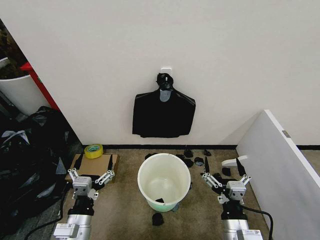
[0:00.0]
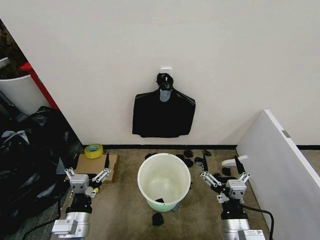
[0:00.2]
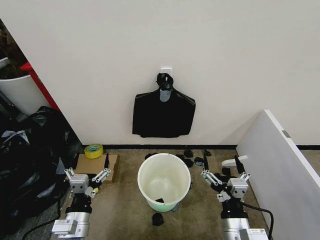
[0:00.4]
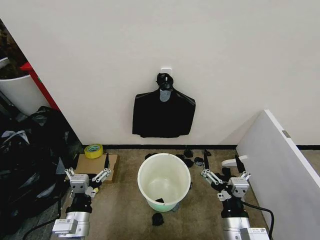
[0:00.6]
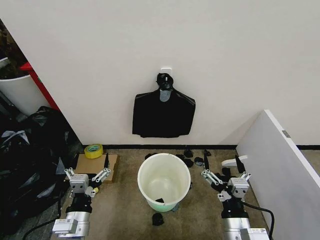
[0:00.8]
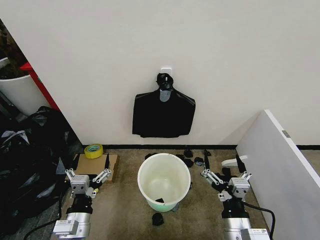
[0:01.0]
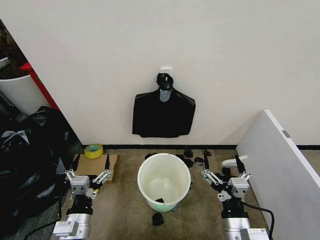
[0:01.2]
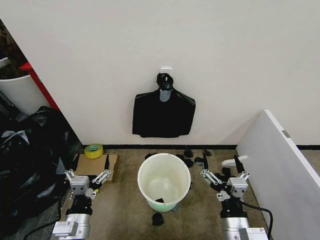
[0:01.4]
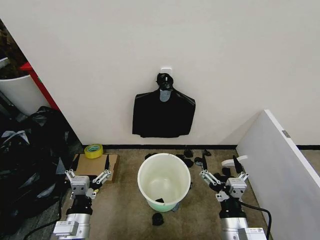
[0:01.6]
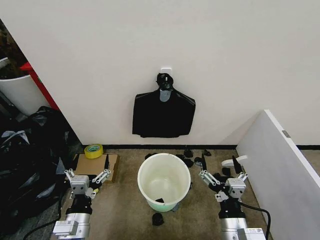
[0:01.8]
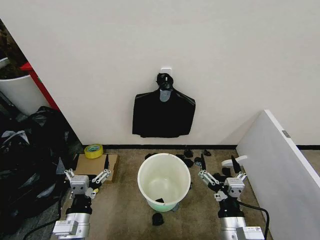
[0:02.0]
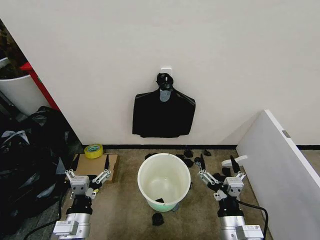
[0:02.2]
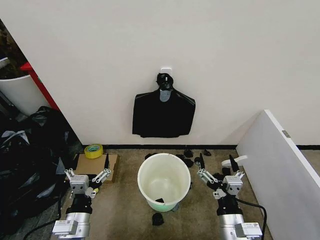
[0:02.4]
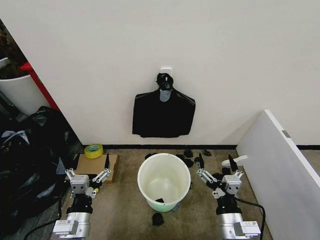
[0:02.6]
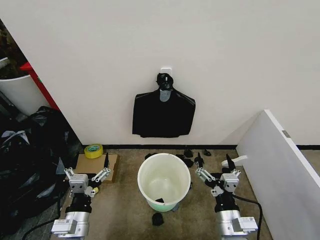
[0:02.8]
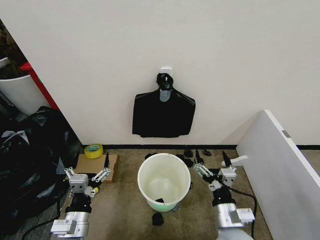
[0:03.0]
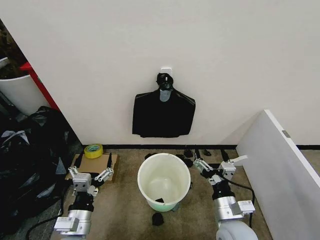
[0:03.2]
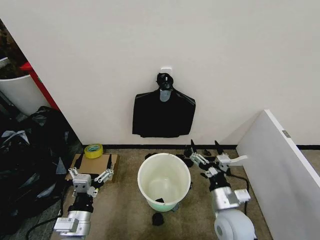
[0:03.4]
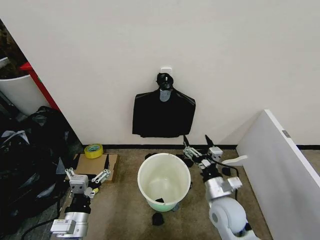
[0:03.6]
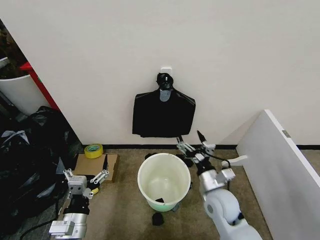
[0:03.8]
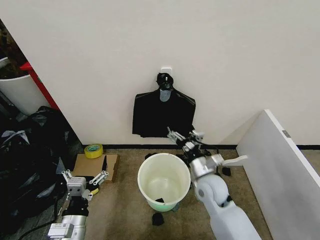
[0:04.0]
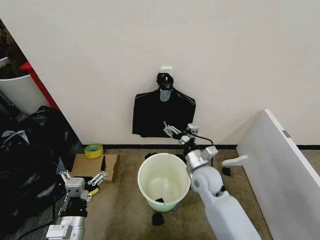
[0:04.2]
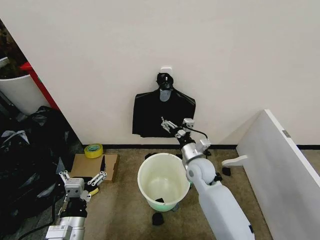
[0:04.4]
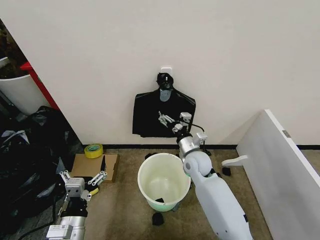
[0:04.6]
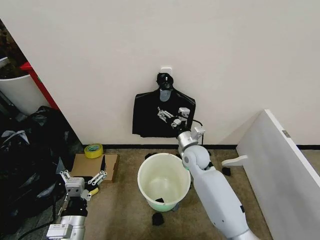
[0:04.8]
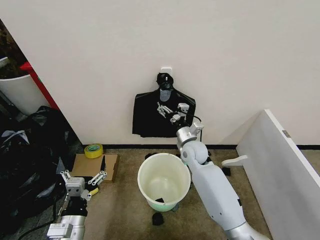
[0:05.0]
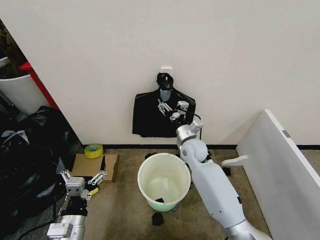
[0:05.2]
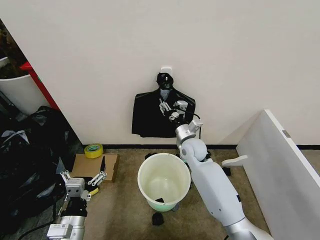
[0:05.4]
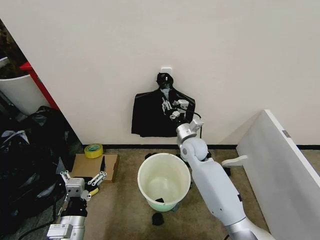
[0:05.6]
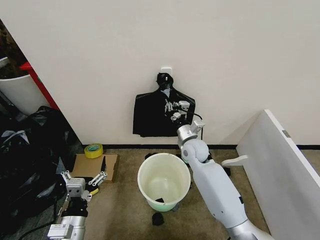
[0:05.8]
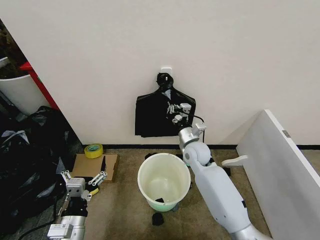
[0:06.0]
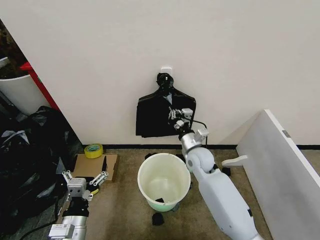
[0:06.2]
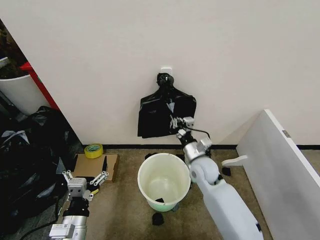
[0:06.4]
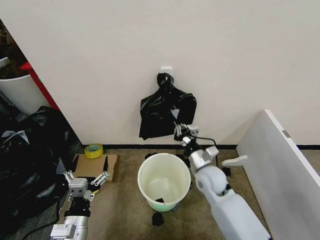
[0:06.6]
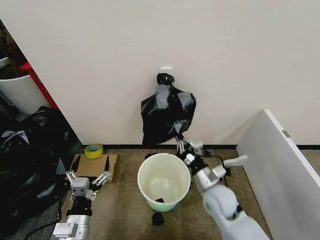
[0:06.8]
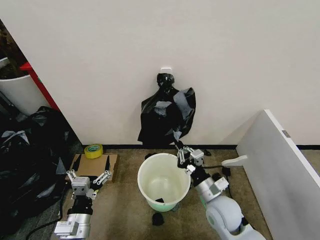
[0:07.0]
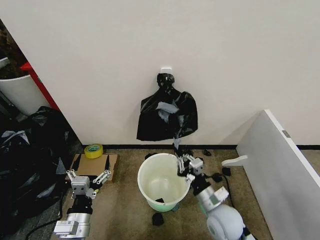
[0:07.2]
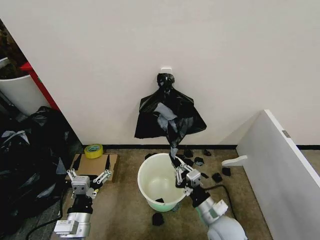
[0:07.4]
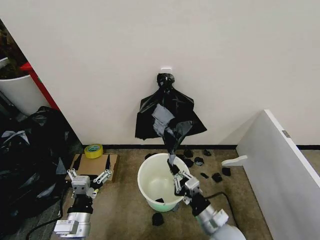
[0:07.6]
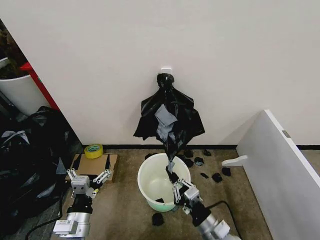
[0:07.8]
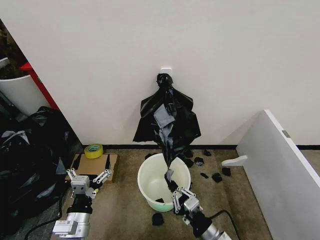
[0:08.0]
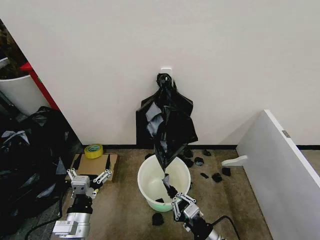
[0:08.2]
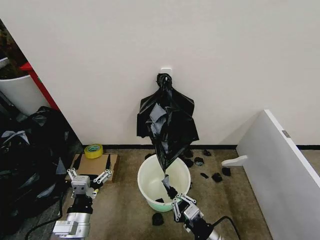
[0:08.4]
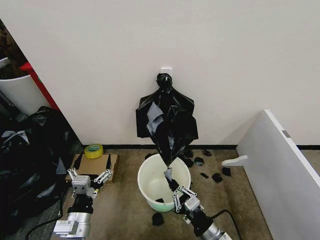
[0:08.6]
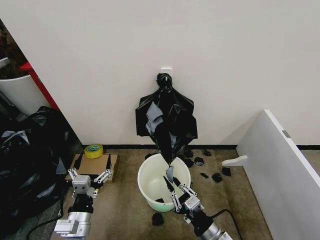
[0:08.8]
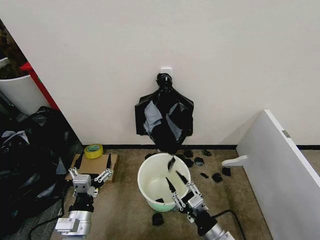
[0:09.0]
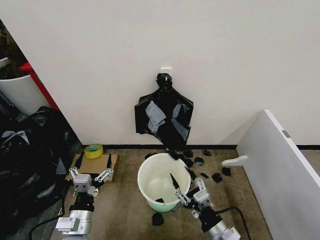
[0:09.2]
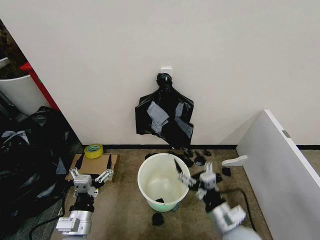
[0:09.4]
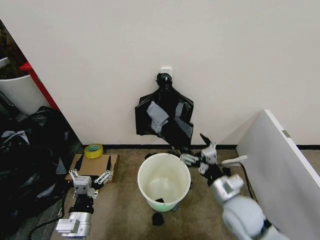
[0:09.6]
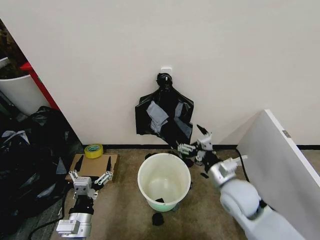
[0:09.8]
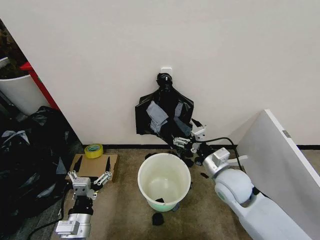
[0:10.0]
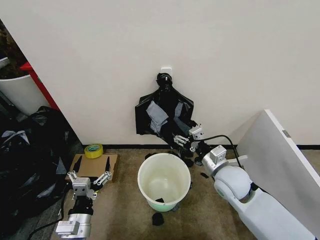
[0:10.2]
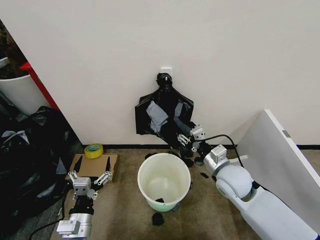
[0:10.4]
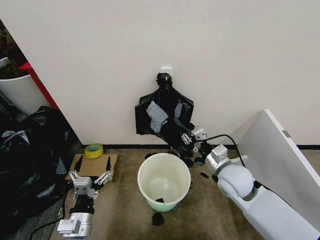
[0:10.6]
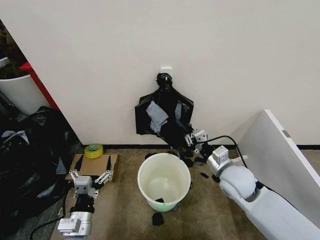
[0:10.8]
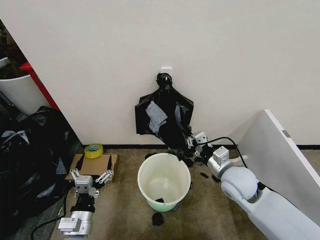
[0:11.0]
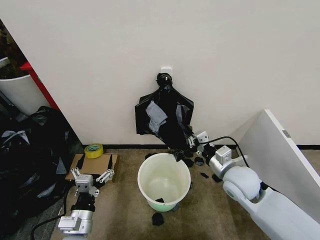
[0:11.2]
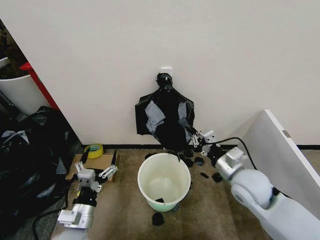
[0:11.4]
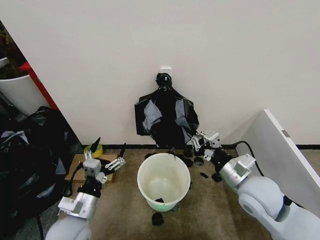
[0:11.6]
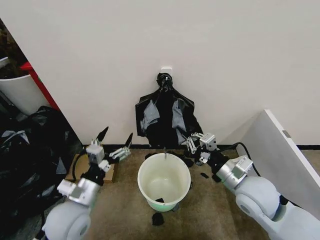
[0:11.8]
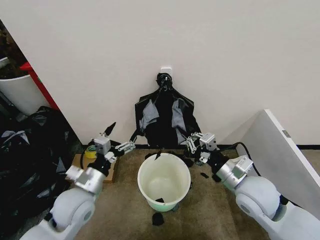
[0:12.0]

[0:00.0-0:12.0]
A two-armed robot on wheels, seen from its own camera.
Task of the whole recording: Place the garbage bag over the trash bin.
0:01.6 to 0:03.0: The grippers move only a little.
0:03.0 to 0:04.4: The right gripper goes approximately 20 cm forward.
0:04.4 to 0:06.0: The right gripper is displaced forward by approximately 5 cm, and closes up.
0:06.0 to 0:07.6: The right gripper moves backward, about 25 cm.
0:07.6 to 0:09.0: The right gripper goes about 5 cm backward, and opens up.
0:09.0 to 0:10.4: The right gripper is displaced forward and upward by about 20 cm, and opens and closes again.
0:10.4 to 0:12.0: The left gripper travels forward and upward by about 15 cm. Meanwhile the right gripper is displaced backward by about 5 cm, and closes its fingers.

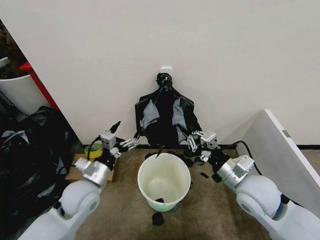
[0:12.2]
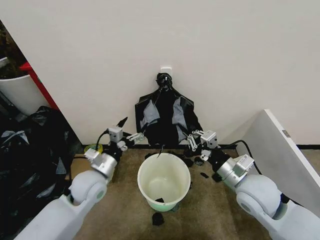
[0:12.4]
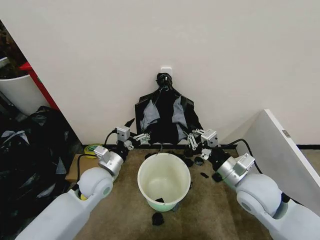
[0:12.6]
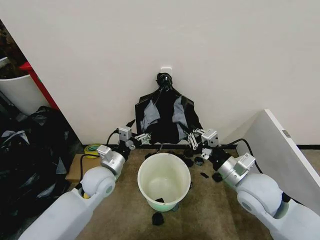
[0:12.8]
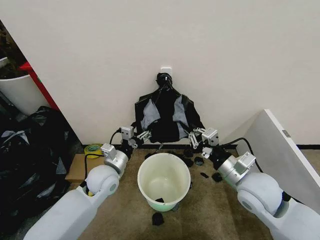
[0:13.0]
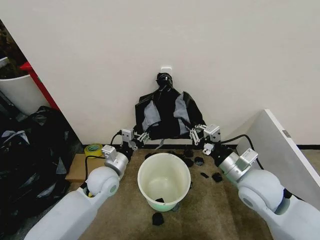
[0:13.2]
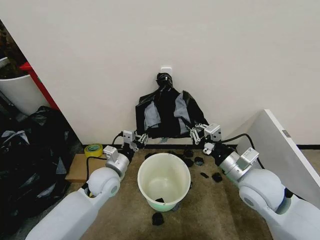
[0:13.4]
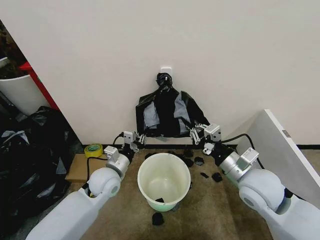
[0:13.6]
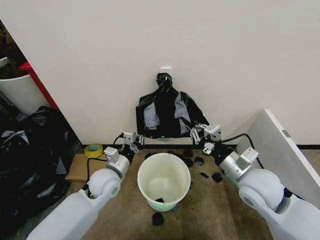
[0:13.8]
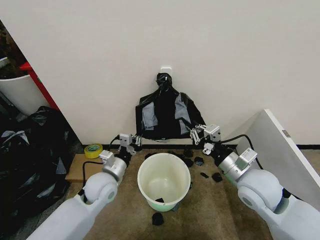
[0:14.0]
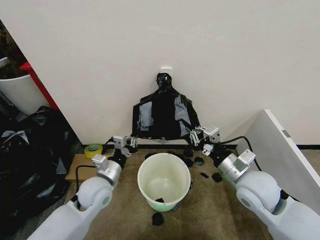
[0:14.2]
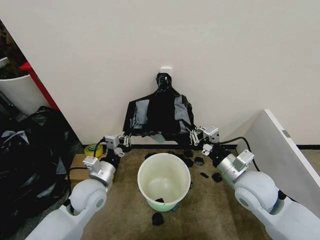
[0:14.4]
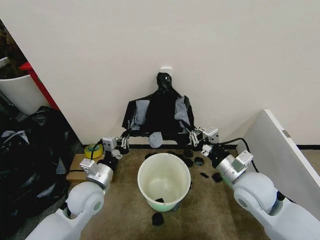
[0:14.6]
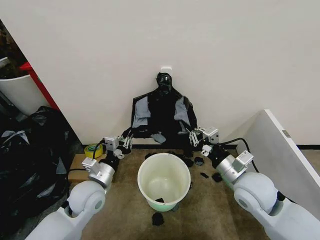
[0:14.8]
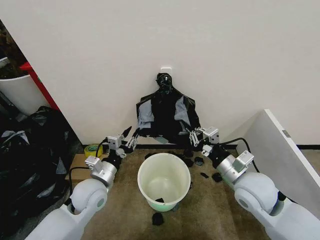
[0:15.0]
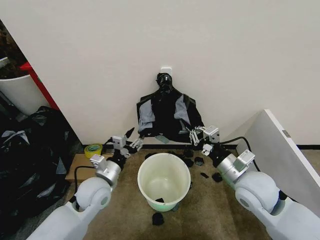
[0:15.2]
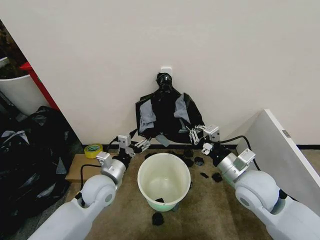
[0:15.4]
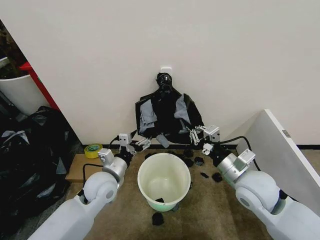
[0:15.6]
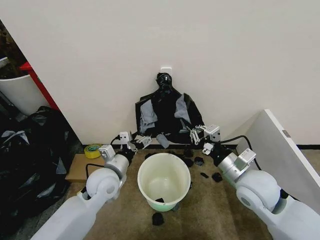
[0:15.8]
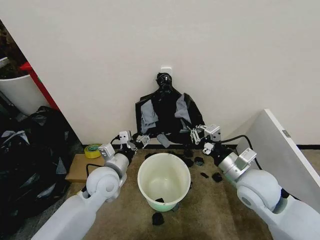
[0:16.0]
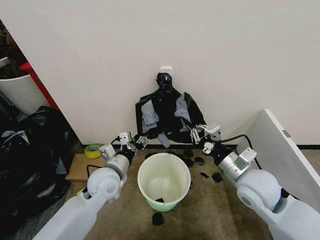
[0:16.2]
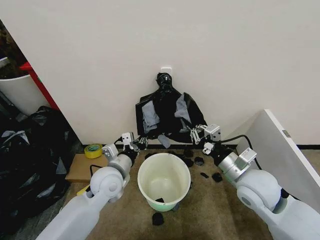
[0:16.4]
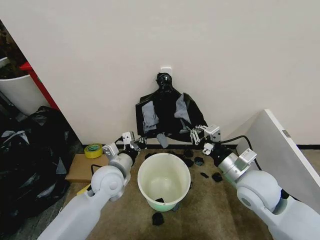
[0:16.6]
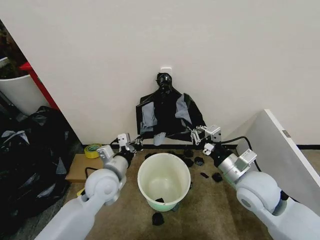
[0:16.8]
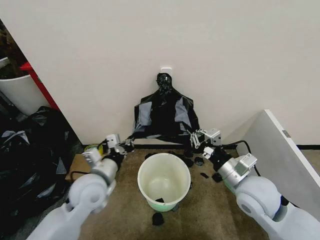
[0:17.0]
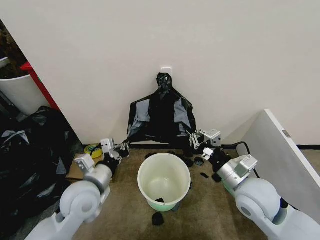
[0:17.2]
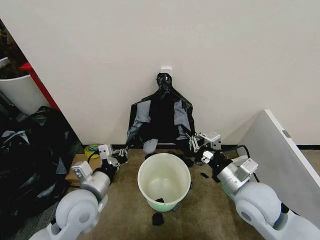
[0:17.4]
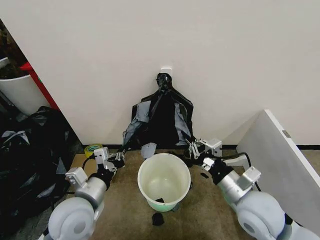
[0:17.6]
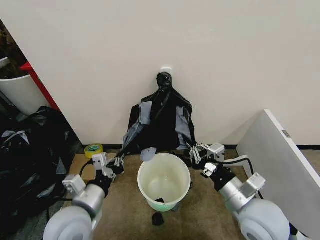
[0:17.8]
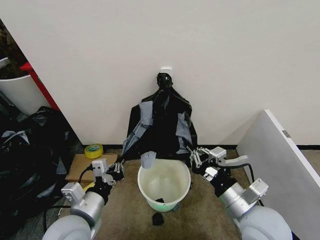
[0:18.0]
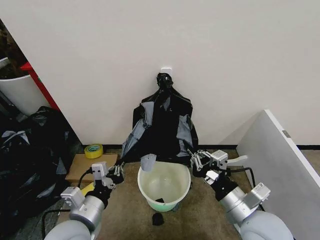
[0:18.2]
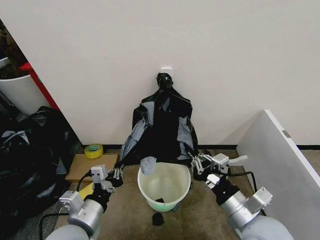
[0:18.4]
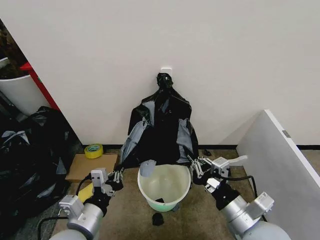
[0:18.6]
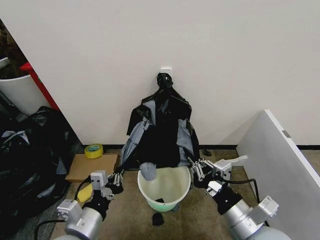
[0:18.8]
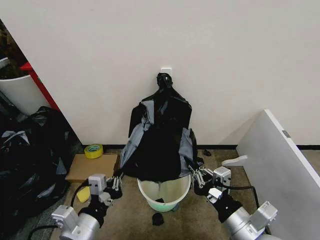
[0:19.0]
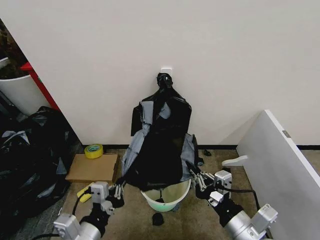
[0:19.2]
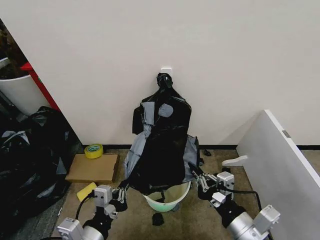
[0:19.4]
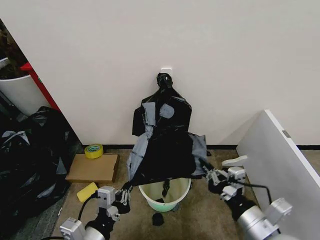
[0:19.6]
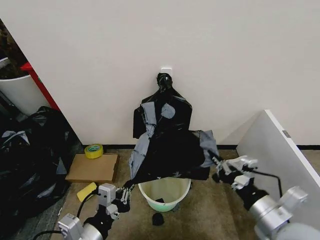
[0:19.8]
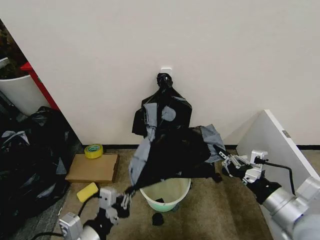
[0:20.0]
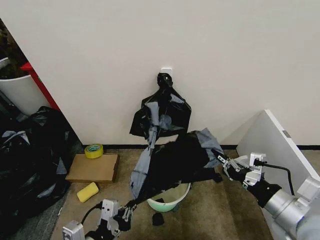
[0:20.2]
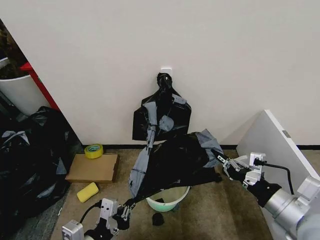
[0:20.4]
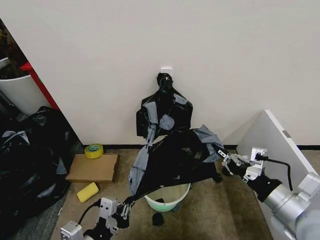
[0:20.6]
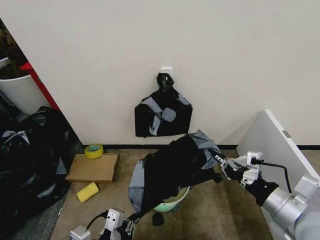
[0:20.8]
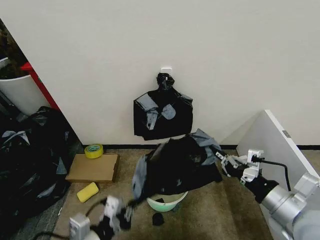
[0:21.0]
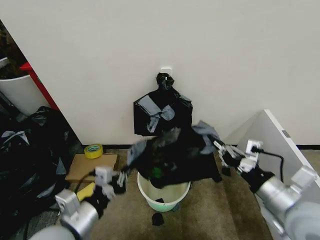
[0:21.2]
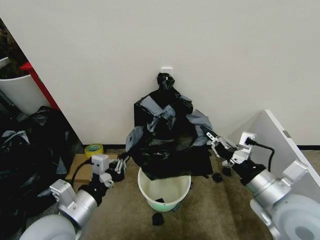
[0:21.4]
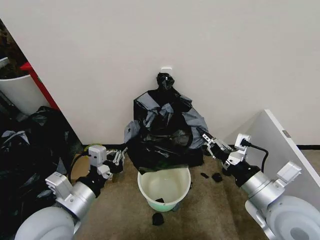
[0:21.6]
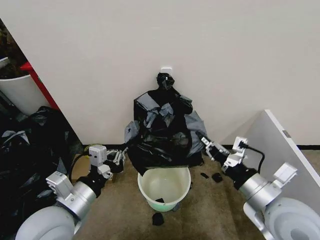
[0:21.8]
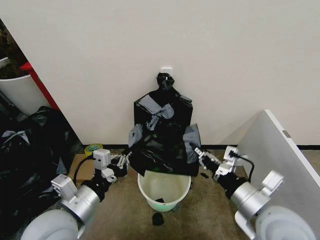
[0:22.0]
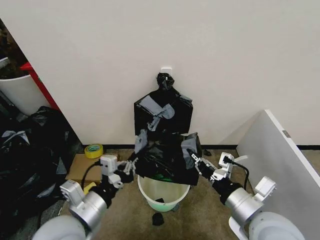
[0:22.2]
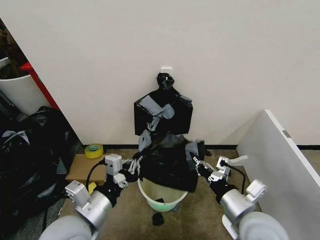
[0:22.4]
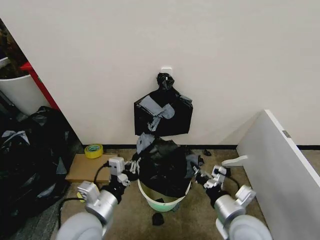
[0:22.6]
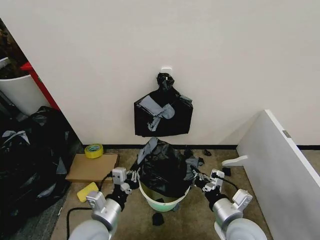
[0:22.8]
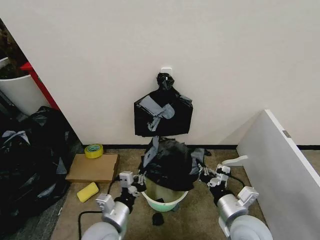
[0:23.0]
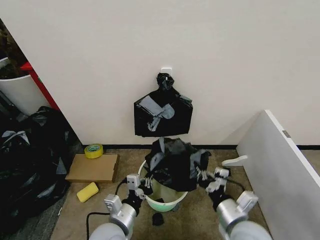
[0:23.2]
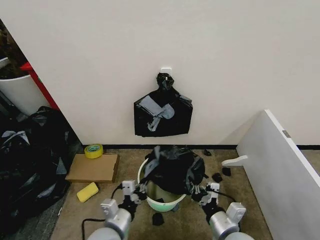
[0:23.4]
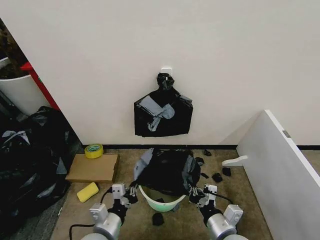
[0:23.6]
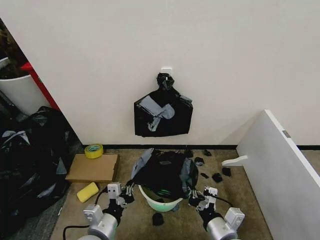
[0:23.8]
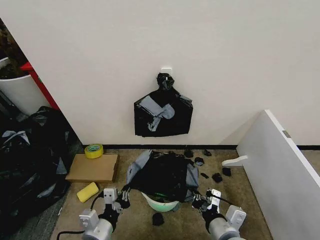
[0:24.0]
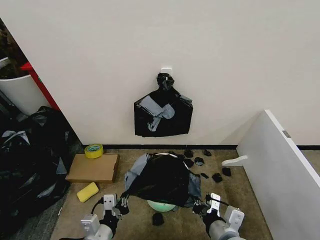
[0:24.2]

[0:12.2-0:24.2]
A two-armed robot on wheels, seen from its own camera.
Task of the whole recording: Place the garbage bag over the trash bin.
0:12.2 to 0:13.8: The left gripper moves forward, some 5 cm, and closes its fingers.
0:13.8 to 0:15.2: The left gripper opens.
0:15.2 to 0:16.6: The left gripper changes place by about 5 cm, and closes.
0:16.6 to 0:18.2: The left gripper moves backward, approximately 15 cm; the right gripper heads backward, covering about 10 cm.
0:18.2 to 0:19.8: The left gripper is displaced backward by about 5 cm, while the right gripper is displaced to the right by roughly 5 cm.
0:19.8 to 0:21.2: The right gripper changes place by roughly 5 cm.
0:21.2 to 0:22.6: The left gripper changes place by some 5 cm; the right gripper is displaced downward and to the left by roughly 15 cm.
0:22.6 to 0:24.2: The right gripper shifts by approximately 5 cm, while the left gripper is displaced downward and backward by some 10 cm.
